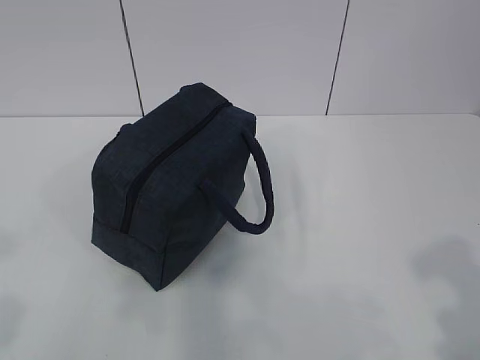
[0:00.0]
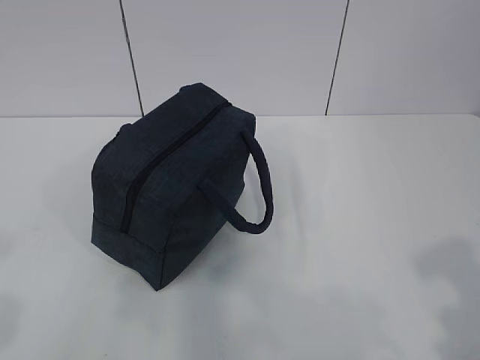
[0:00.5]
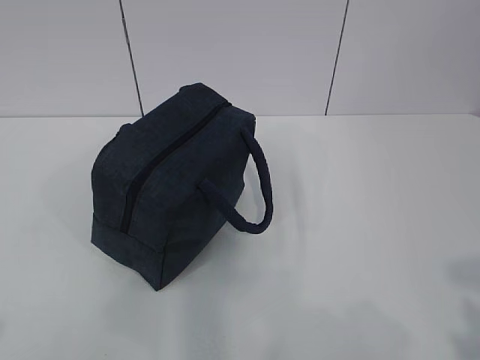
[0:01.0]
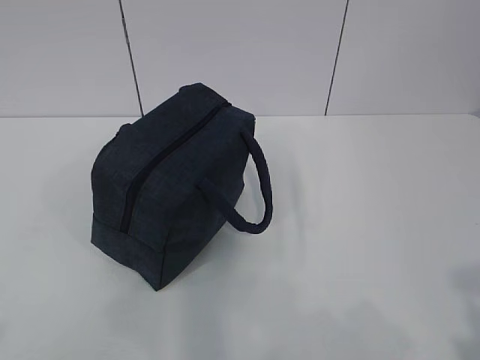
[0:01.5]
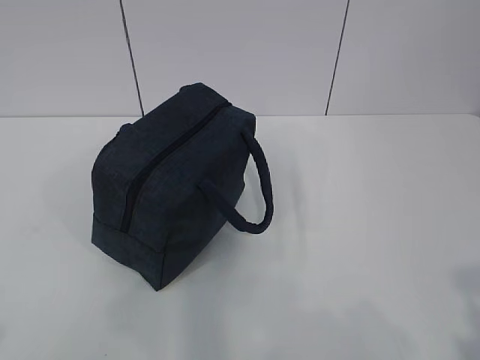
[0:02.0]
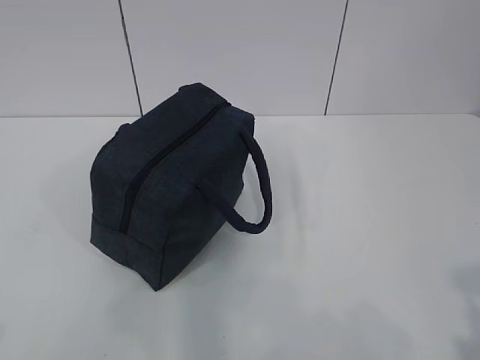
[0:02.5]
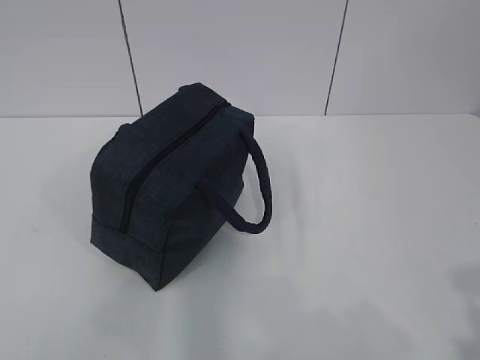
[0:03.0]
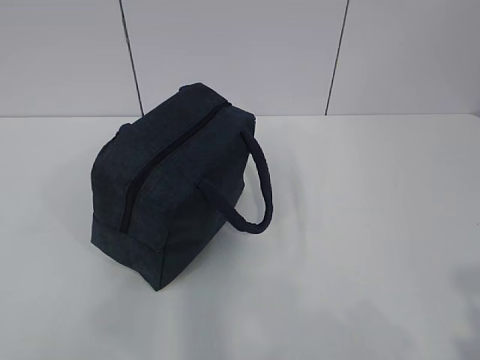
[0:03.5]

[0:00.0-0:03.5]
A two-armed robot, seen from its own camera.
0:02.0 to 0:03.5: Both grippers stay put.
